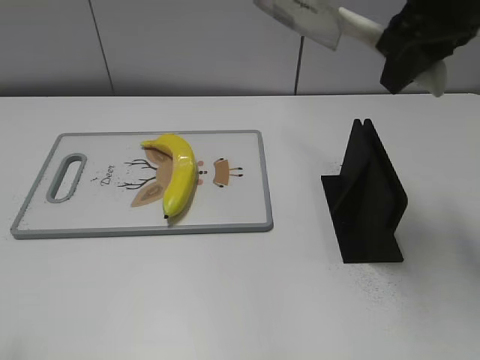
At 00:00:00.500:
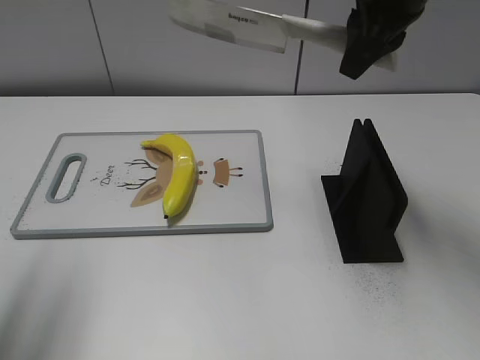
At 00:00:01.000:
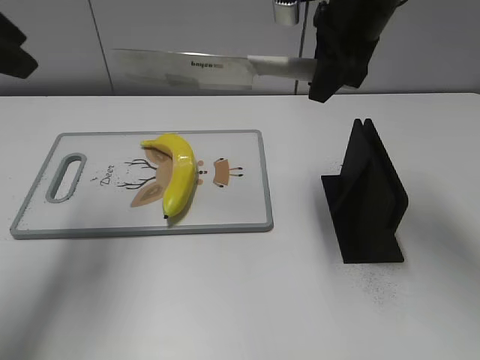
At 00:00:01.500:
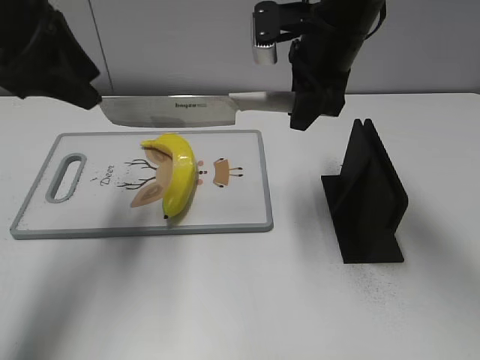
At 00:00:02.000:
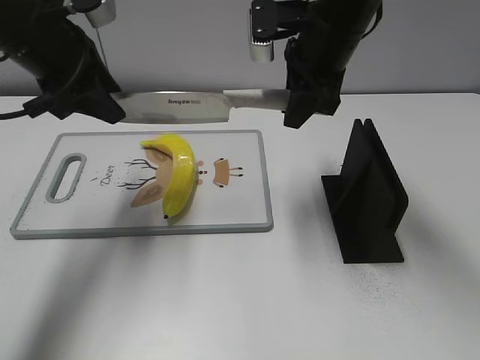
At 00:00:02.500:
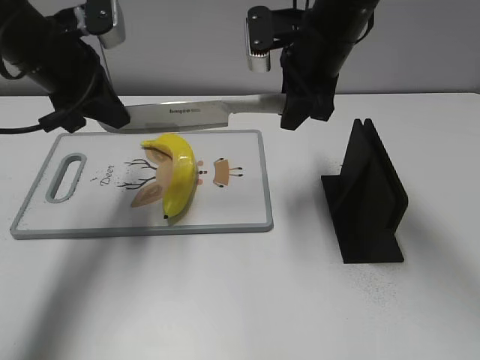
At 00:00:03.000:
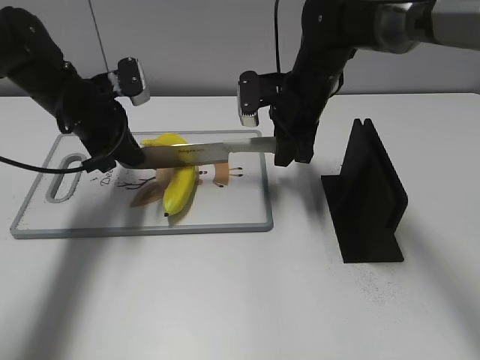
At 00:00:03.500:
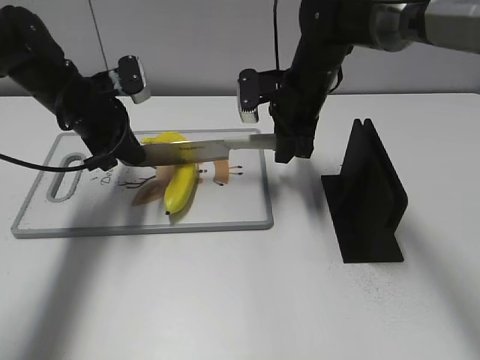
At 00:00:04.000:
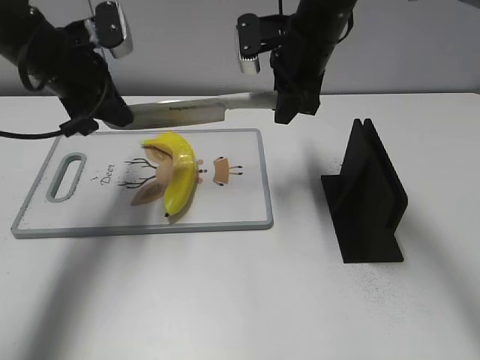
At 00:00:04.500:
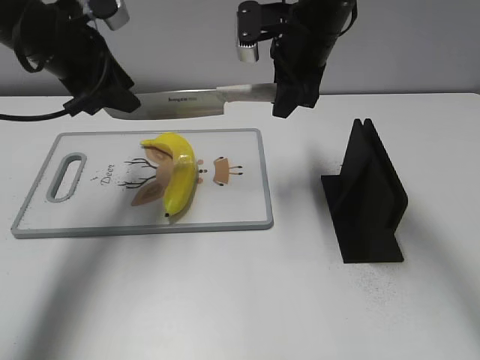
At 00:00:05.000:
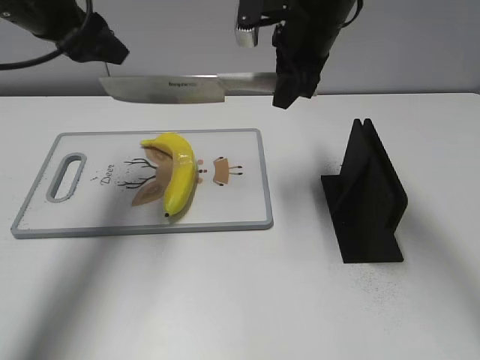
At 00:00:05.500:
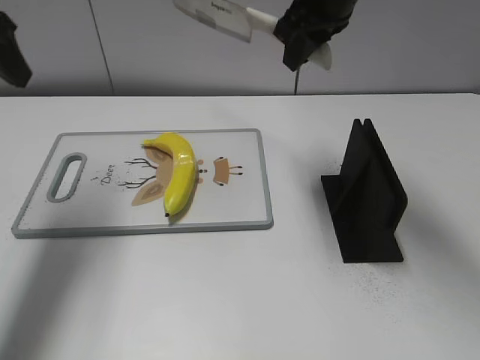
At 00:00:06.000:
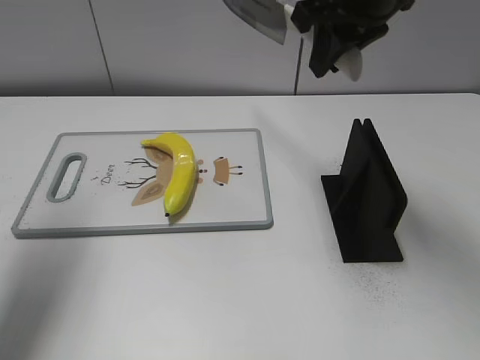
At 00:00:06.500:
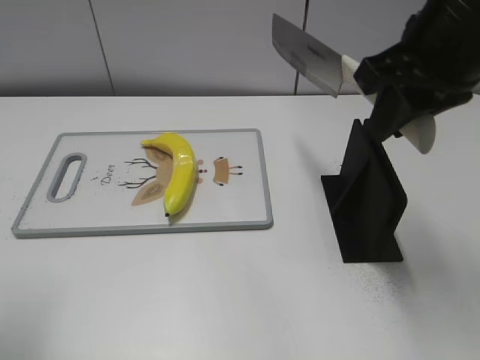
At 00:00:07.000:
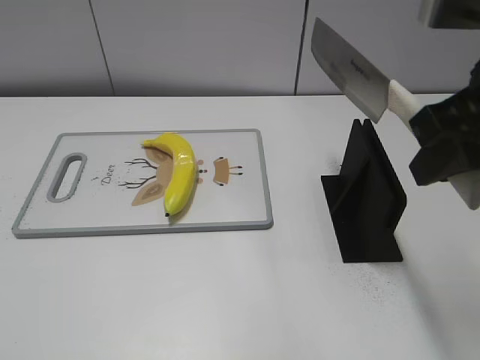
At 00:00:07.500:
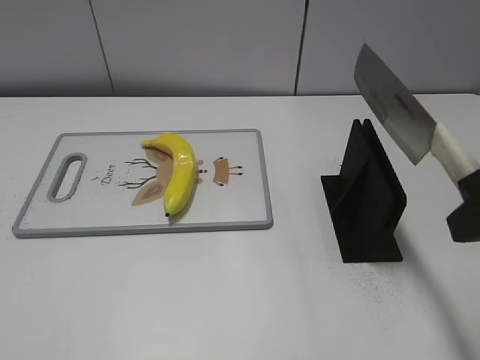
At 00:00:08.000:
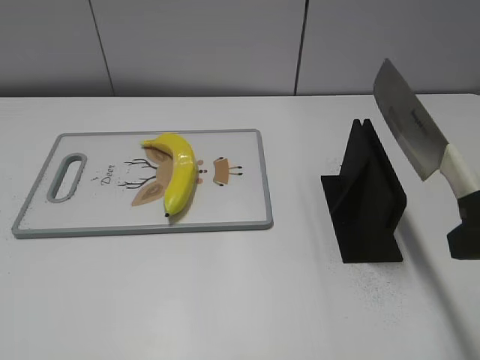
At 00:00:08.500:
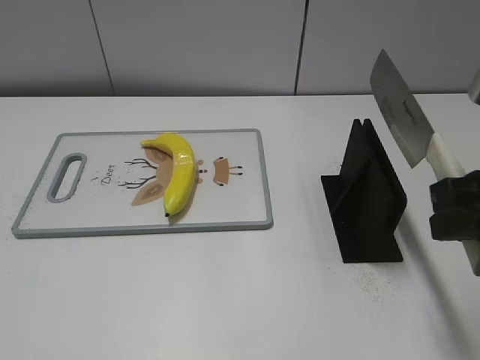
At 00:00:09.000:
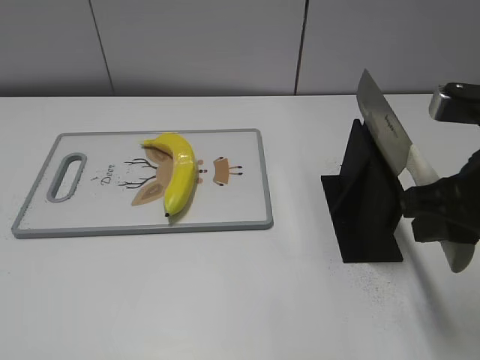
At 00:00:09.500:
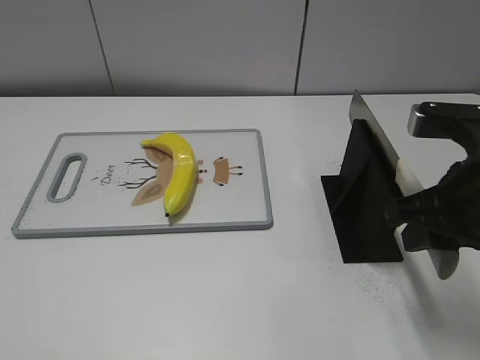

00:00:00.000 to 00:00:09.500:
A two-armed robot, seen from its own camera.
Task of the whole recording: cut plastic banana.
Step, 00:00:00.000 to 00:00:04.000: Lift the knife with your right hand.
Step, 00:00:05.000 to 00:00:06.000: Cut the banana with your right hand.
Step, 00:00:06.500 to 00:00:07.000: Lift the knife with your right hand.
00:00:00.000 to 00:00:02.000: The right gripper is displaced downward, forward and to the left by about 15 cm; the left gripper moves forward, approximately 30 cm.
00:00:02.000 to 00:00:04.000: The left gripper closes. The right gripper goes downward and returns, roughly 10 cm each way.
00:00:04.000 to 00:00:05.500: The right gripper travels upward by some 10 cm. The left gripper heads upward, to the left and backward, covering approximately 15 cm, and opens.
00:00:05.500 to 00:00:07.500: The left gripper heads backward, covering roughly 35 cm; the right gripper shifts some 30 cm backward and to the right.
00:00:07.500 to 00:00:09.500: The right gripper goes approximately 10 cm downward.

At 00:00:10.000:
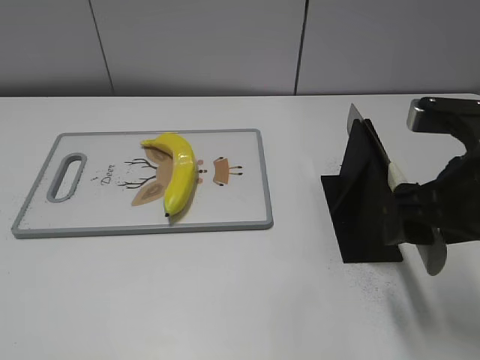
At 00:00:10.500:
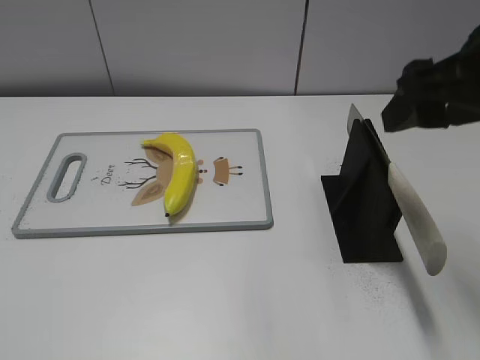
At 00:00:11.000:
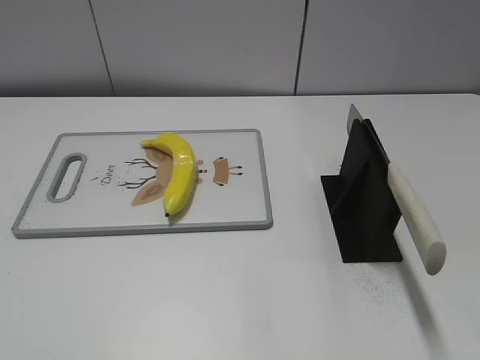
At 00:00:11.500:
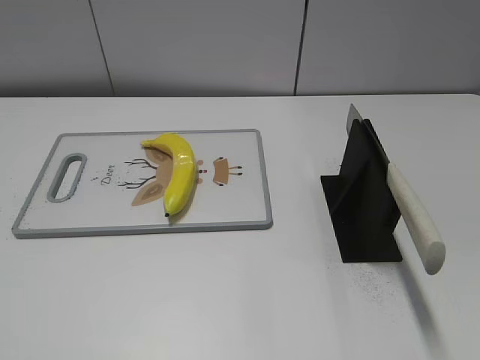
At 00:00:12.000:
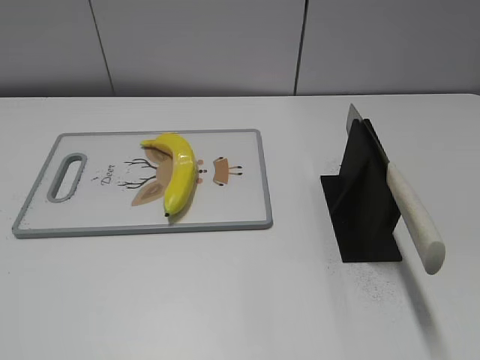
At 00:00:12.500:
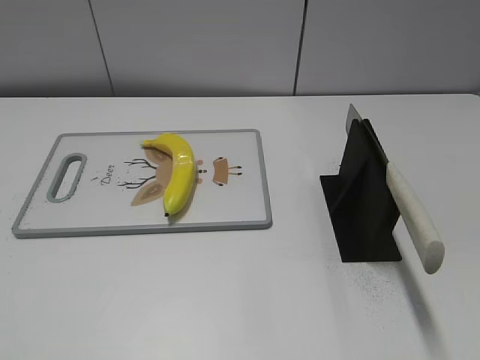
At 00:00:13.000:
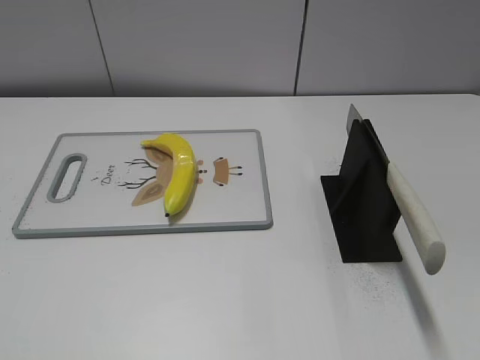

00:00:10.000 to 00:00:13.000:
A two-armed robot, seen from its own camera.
Task of the whole recording: cut plastic banana.
Step, 00:00:10.000 to 00:00:13.000: Place the knife on the storage rack with your right hand.
00:00:10.000 to 00:00:11.500: The right gripper is displaced backward, upward and to the right by about 20 cm.

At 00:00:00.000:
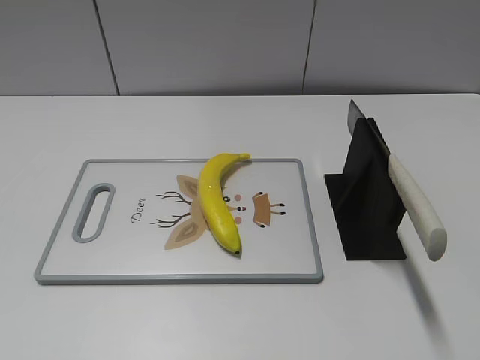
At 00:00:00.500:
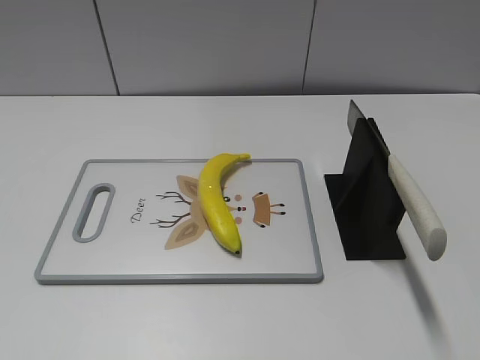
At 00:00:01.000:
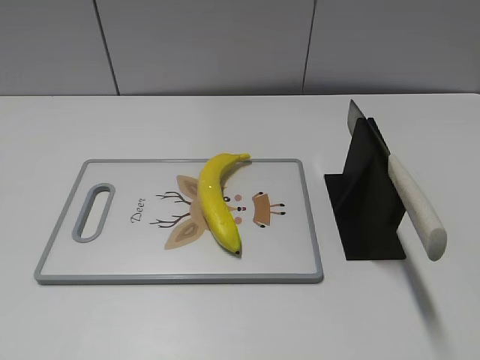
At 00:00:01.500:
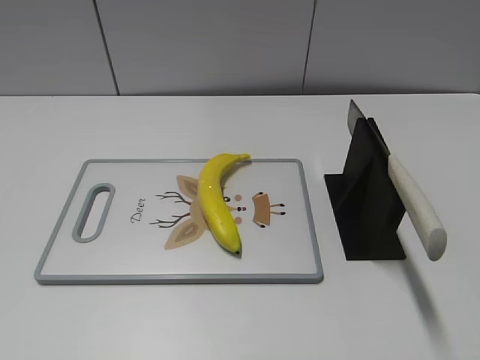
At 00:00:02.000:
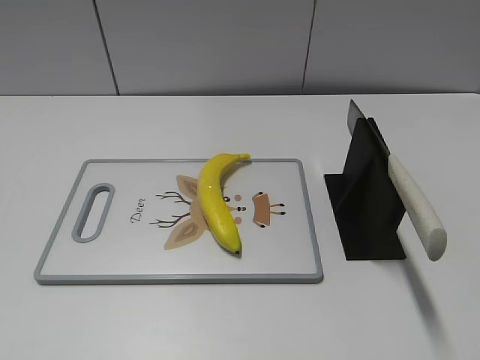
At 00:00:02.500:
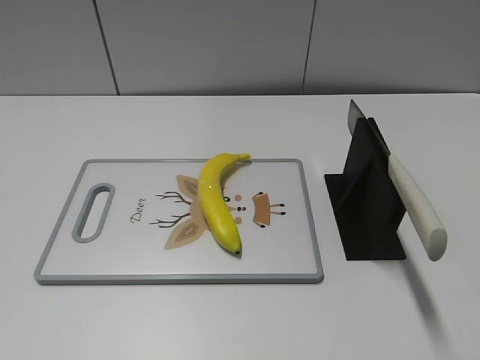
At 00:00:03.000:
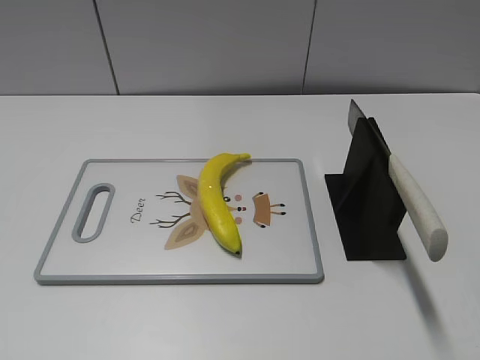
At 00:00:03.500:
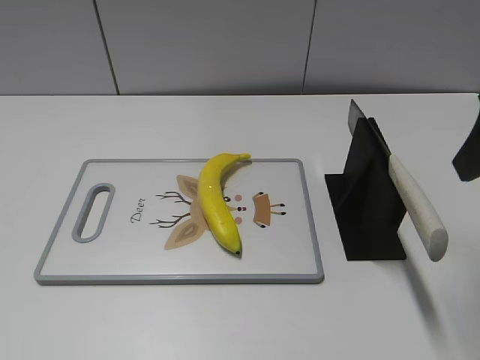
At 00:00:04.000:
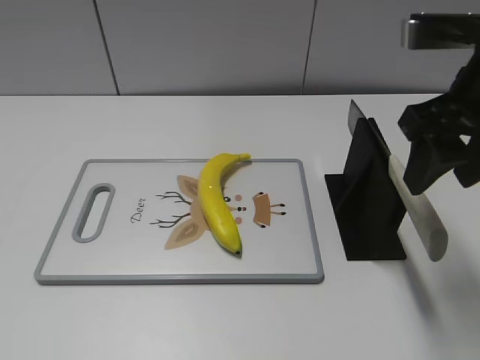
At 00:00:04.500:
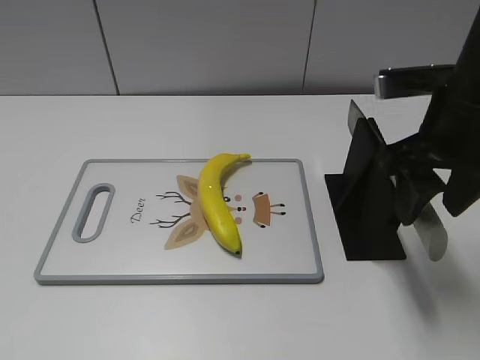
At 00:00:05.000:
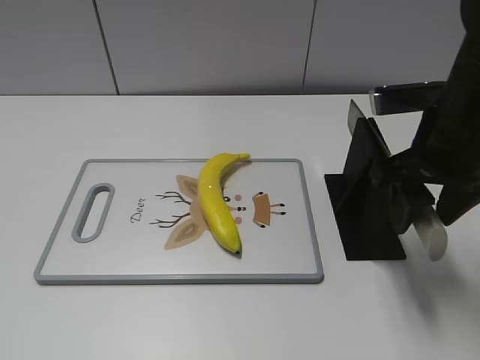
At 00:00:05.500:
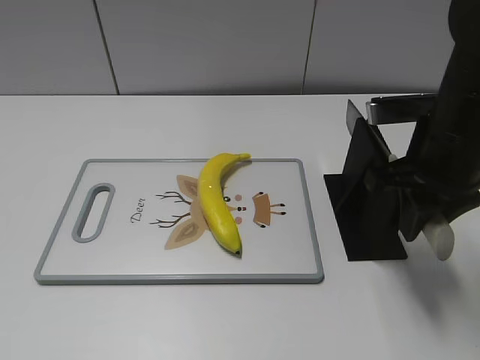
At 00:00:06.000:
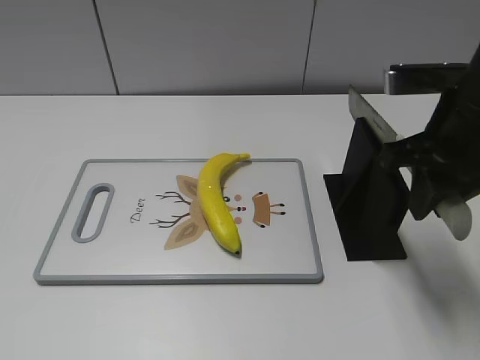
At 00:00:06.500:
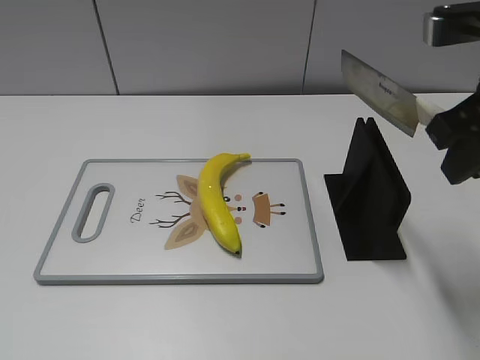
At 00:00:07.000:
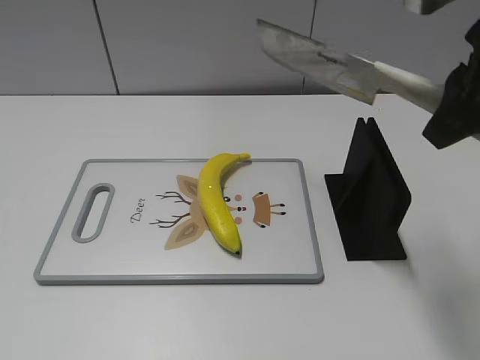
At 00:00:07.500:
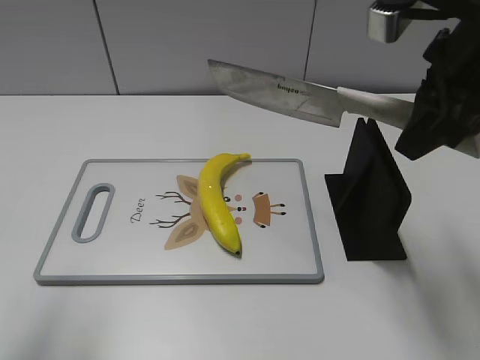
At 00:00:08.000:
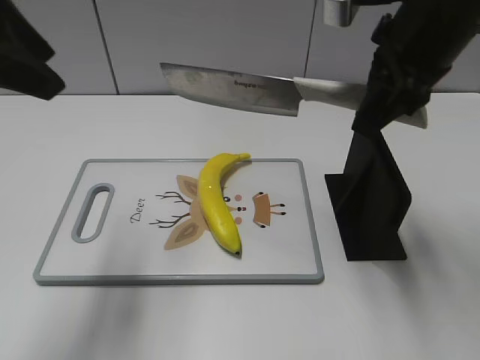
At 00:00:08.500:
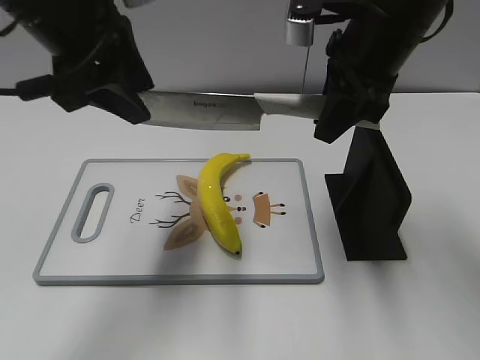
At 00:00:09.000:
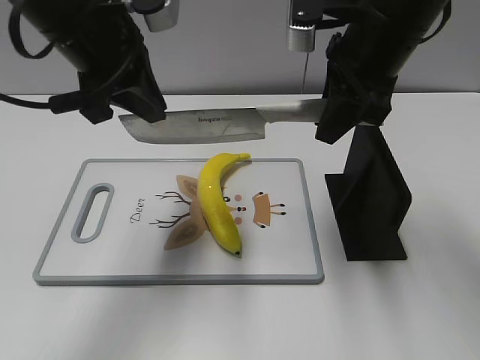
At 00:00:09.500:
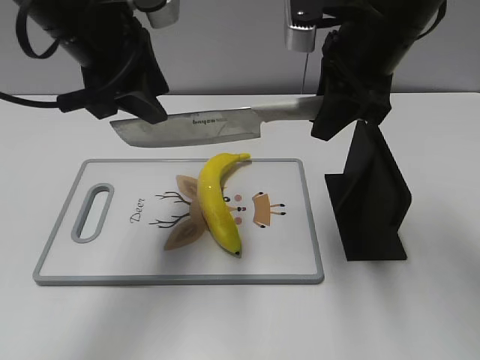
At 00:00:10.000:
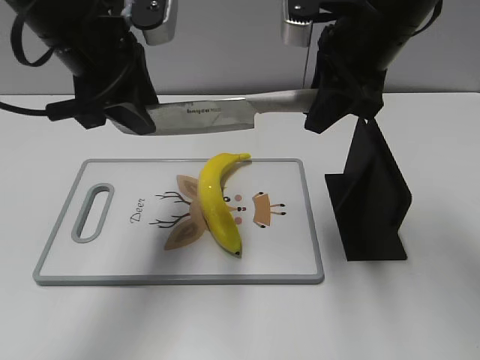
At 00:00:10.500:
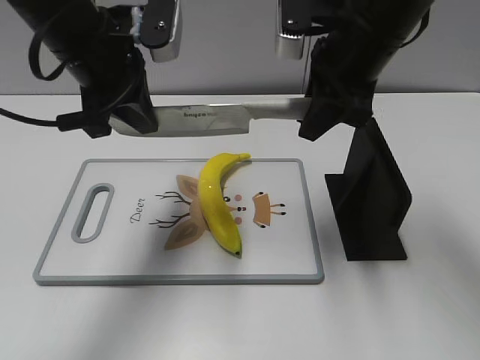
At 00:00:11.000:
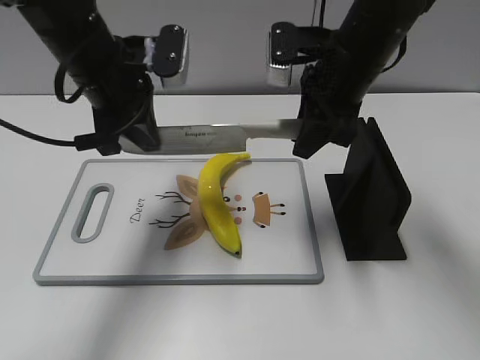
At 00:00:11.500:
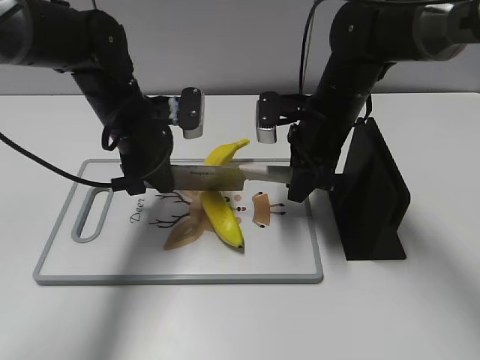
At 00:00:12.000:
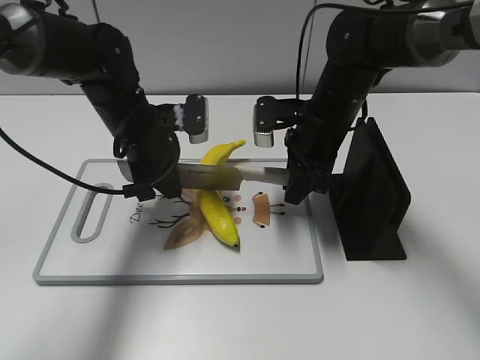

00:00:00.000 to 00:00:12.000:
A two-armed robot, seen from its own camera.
Task of the whole recording: cut plastic banana.
Step, 00:00:00.000 to 00:00:06.500: Grab the knife handle with your right hand.
00:00:02.000 to 00:00:04.000: The right gripper travels forward and to the left by roughly 25 cm.
00:00:04.000 to 00:00:06.000: The right gripper closes its fingers.
00:00:06.000 to 00:00:08.000: The right gripper shifts some 10 cm upward and forward. The left gripper is displaced forward by some 25 cm.
00:00:08.000 to 00:00:10.000: The left gripper moves forward, downward and to the right, roughly 10 cm, and closes, then reopens.
00:00:10.000 to 00:00:12.000: The grippers both shift downward by about 15 cm. The left gripper closes its fingers.
